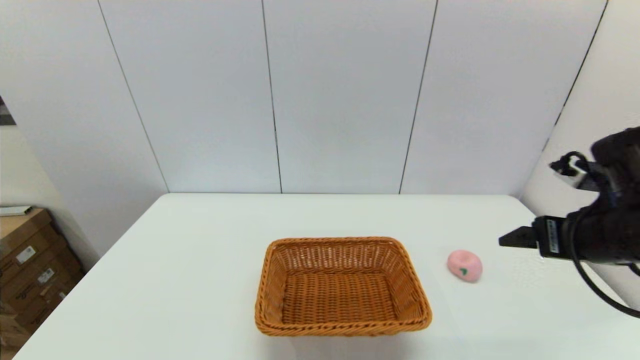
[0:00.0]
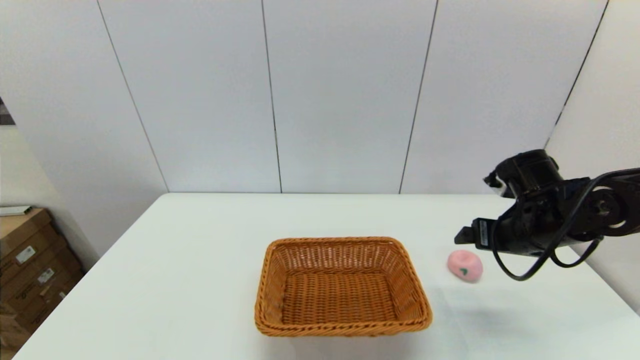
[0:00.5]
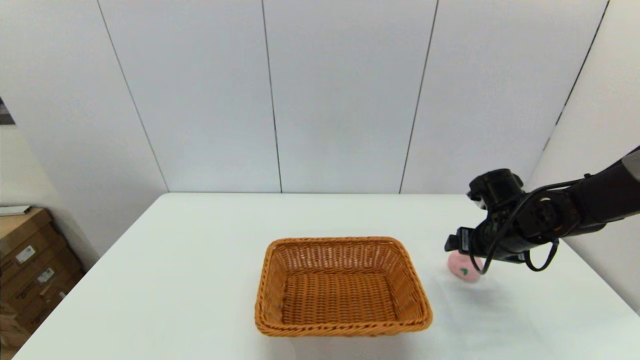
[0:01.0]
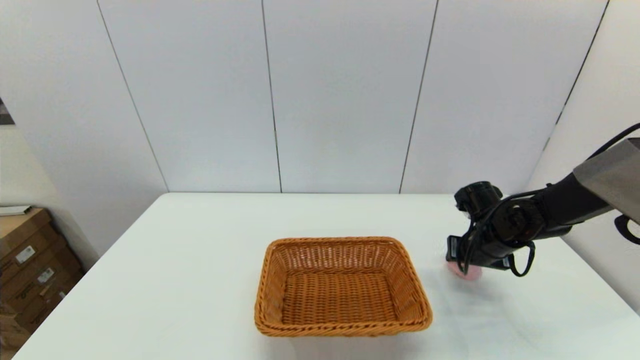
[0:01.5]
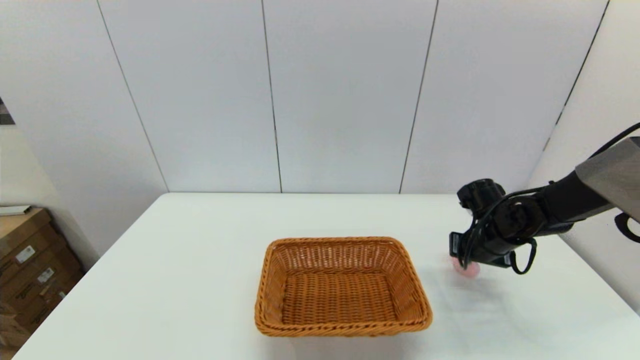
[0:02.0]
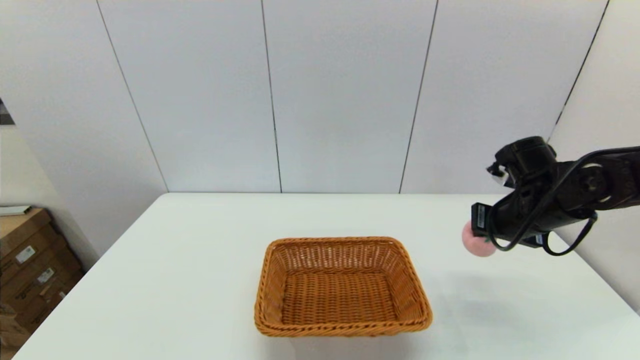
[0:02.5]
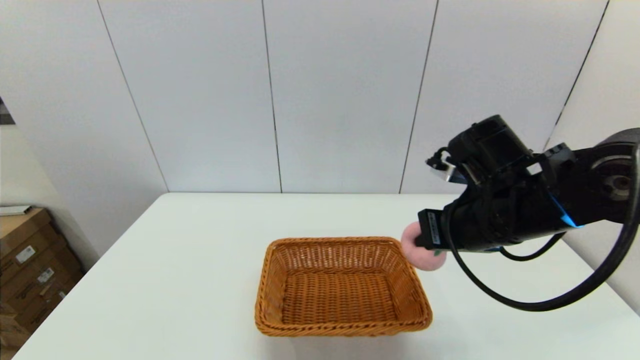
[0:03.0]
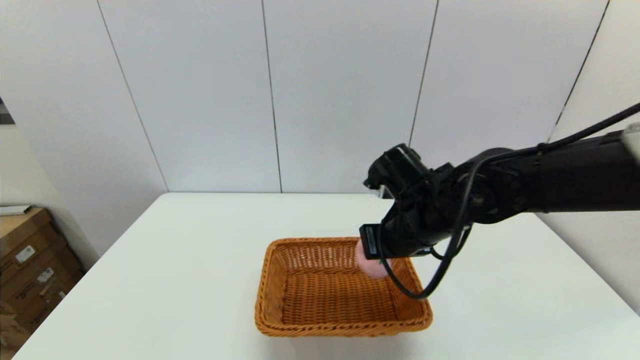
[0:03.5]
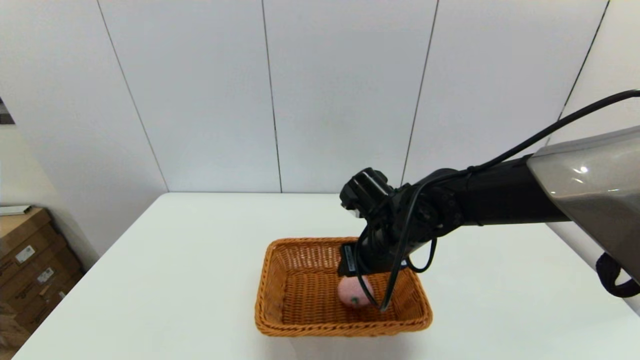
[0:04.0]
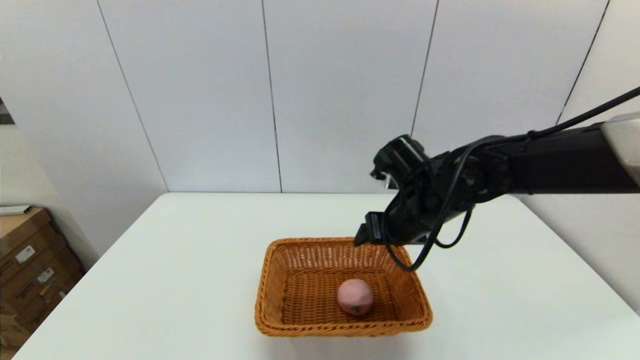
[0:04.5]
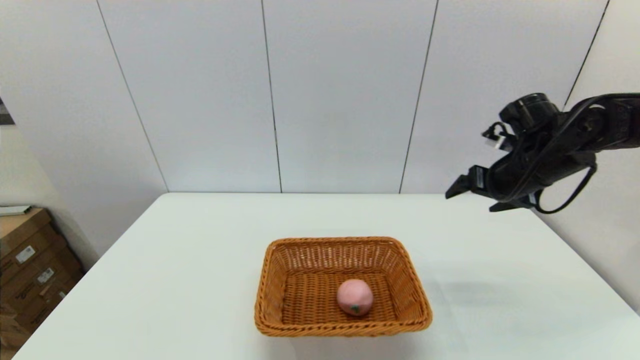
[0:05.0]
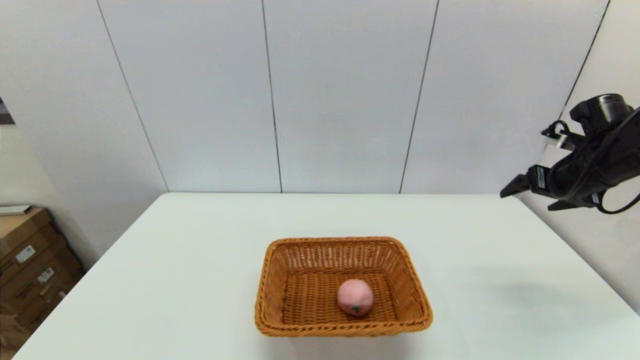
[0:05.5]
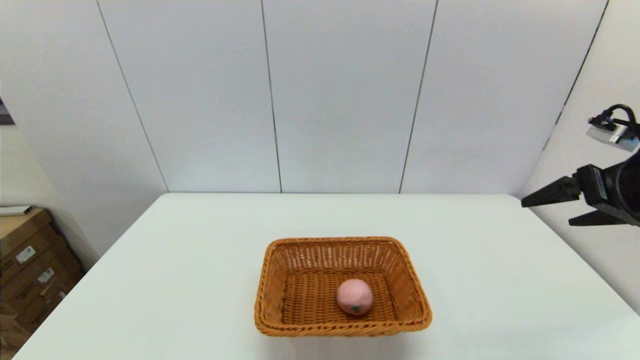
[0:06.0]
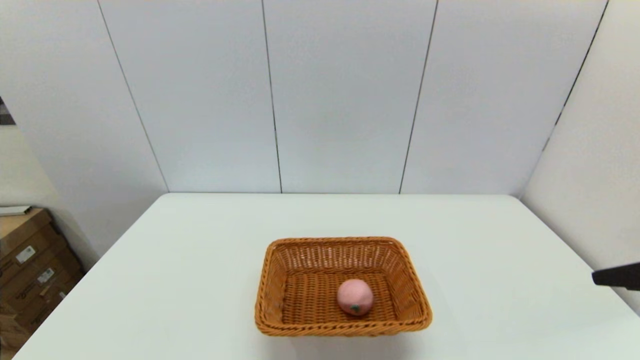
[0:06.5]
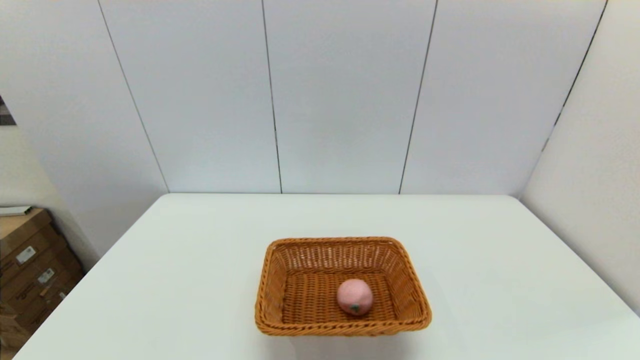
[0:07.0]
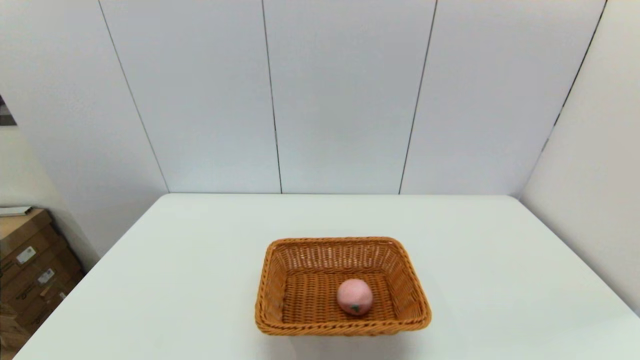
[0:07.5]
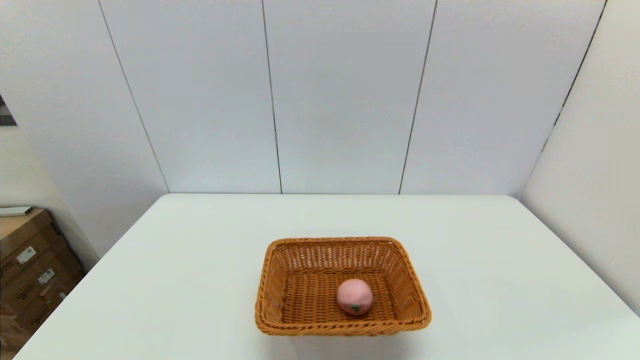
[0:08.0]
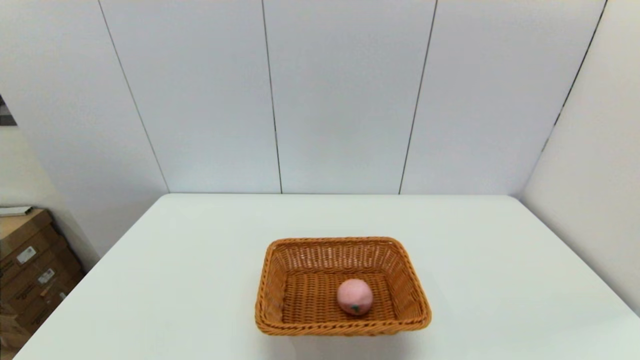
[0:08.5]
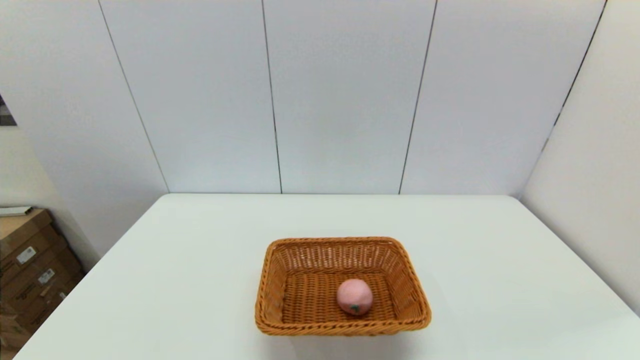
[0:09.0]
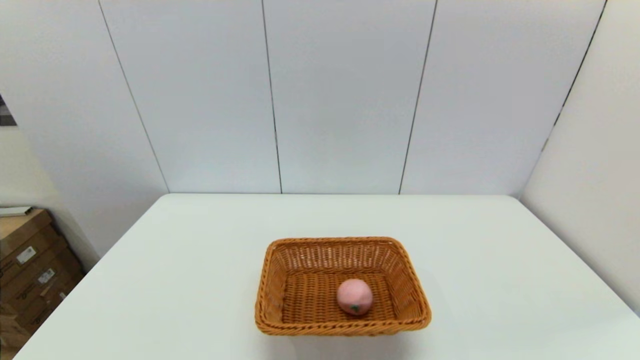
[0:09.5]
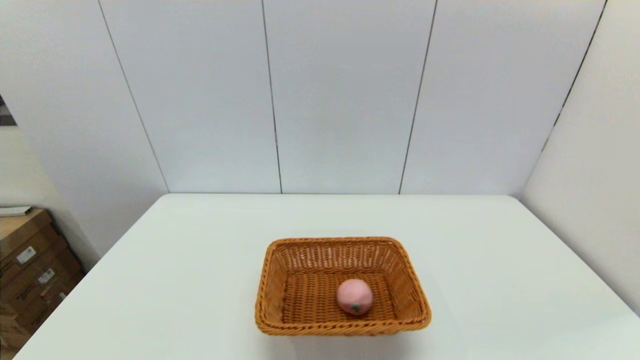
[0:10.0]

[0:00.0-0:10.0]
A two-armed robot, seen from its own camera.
Step, 0:02.0 to 0:04.0: Place the peach into the light basket with the right gripper.
0:00.0 to 0:02.0: The right gripper moves downward and forward, roughly 20 cm, and closes.
0:02.0 to 0:04.0: The right gripper is displaced to the left by some 20 cm, and opens.
0:04.0 to 0:06.0: The right gripper goes roughly 30 cm to the right and upward, and opens its fingers.
0:06.0 to 0:08.0: The right gripper goes roughly 35 cm backward and downward.
